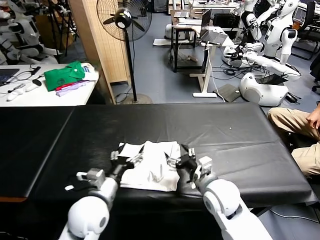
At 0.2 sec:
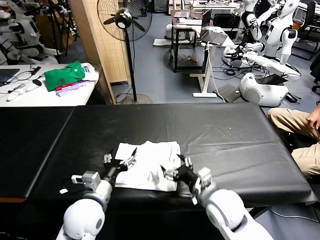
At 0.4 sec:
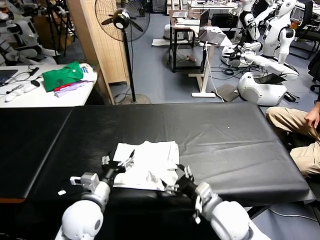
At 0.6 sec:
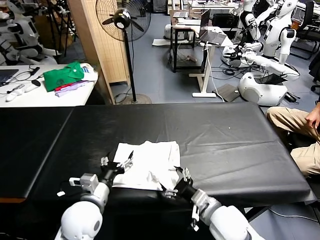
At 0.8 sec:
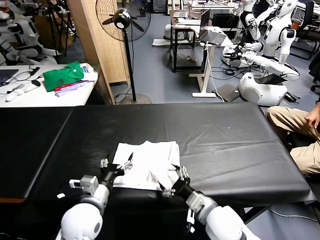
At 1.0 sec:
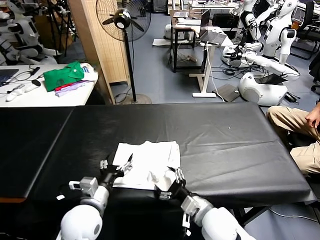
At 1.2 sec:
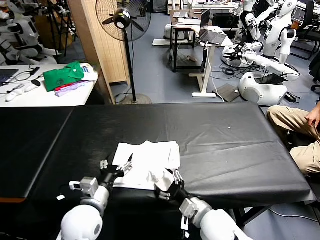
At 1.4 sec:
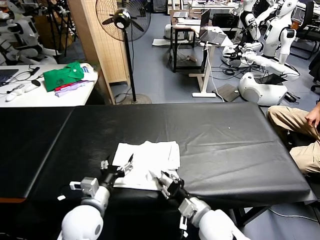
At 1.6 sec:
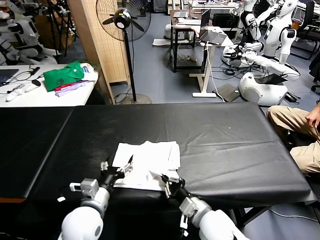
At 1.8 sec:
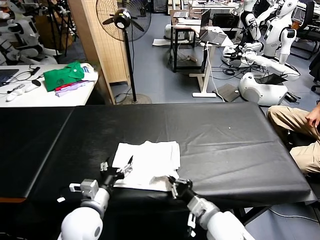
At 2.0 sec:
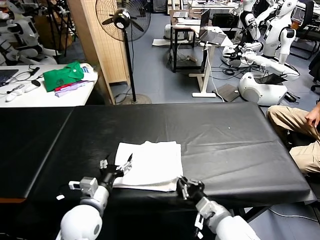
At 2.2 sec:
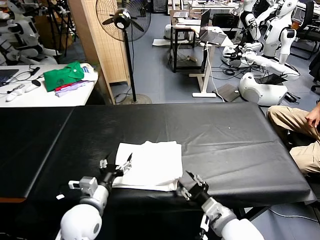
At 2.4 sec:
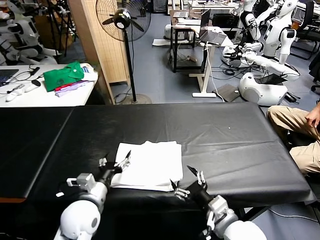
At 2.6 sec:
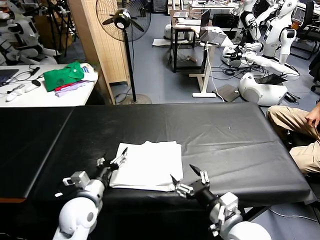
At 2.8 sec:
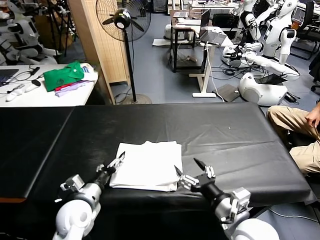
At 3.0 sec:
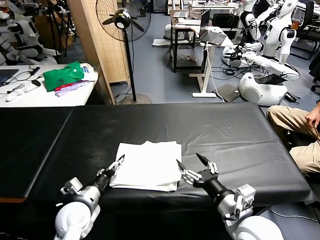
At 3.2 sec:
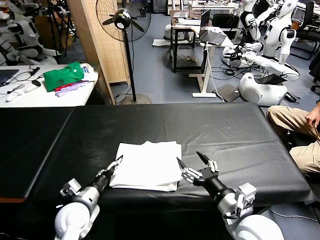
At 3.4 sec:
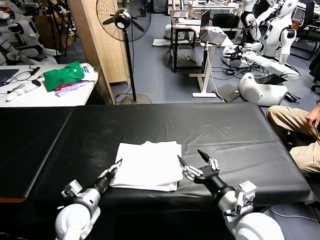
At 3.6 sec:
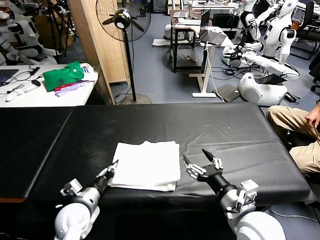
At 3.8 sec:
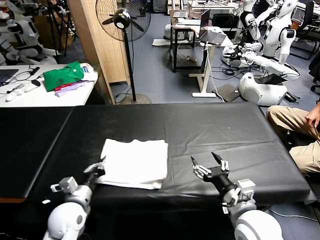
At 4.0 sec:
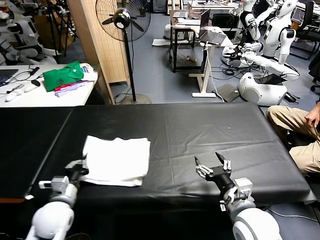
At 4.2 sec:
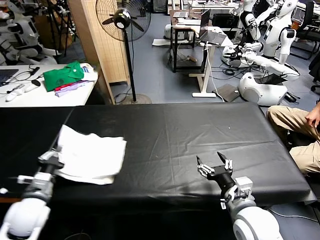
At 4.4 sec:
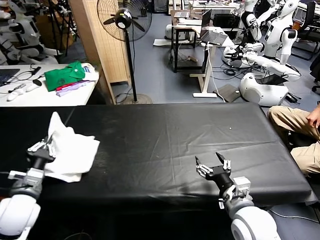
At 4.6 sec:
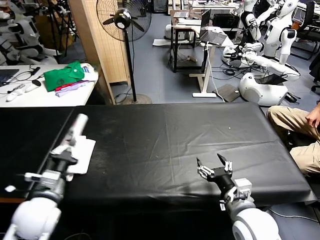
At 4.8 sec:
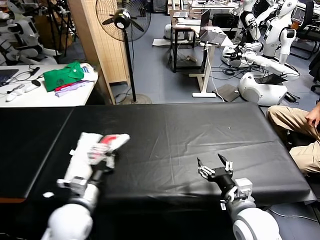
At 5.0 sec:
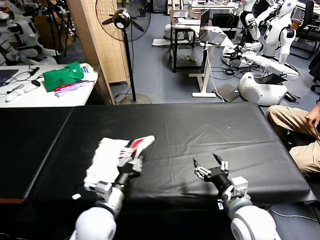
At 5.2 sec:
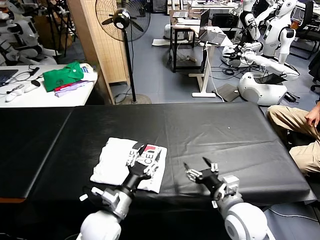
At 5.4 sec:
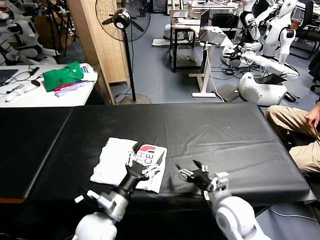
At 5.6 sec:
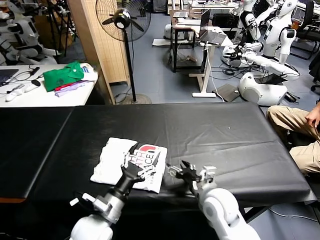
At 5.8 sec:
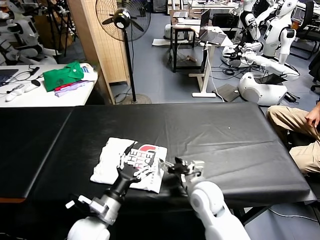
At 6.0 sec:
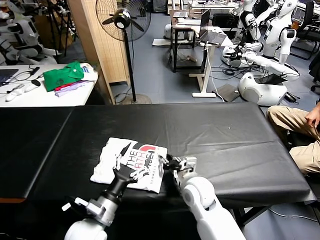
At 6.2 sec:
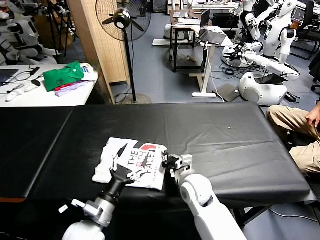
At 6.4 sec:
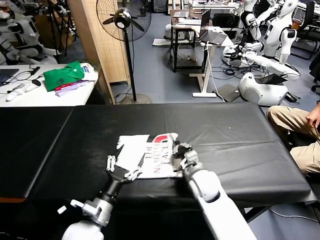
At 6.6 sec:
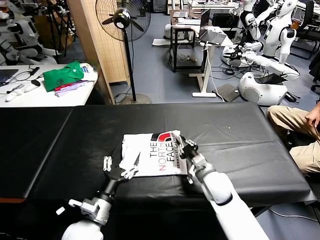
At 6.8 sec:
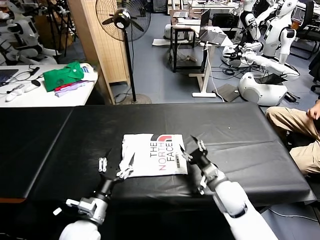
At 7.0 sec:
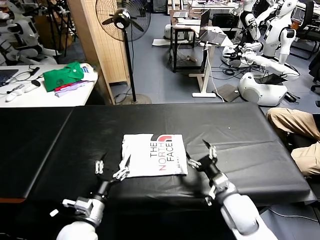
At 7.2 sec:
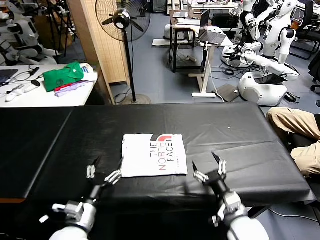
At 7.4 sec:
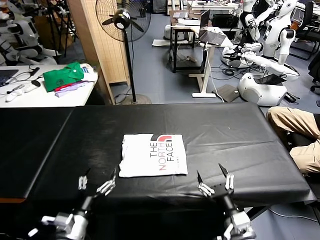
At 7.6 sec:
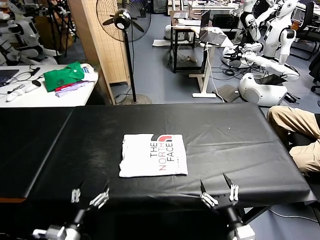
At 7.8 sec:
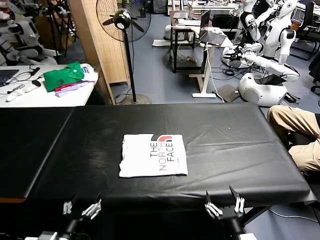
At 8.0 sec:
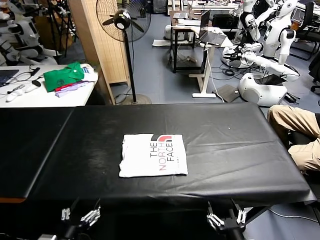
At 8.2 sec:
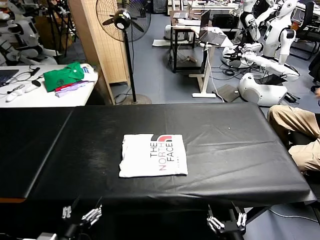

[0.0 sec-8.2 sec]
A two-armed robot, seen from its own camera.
Task of the whole recording: fold and organize the clothes.
Step, 0.0 sec to 5.0 sec: Flip the folded clothes over with left gripper.
Step, 5.2 sec to 6.6 sec: Drag the clothes to the center of the table.
0.0 sec to 1.6 sec: The right gripper goes some 10 cm backward and downward, and closes up.
1.6 sec to 3.2 sec: The left gripper travels to the left and downward by some 10 cm, while the right gripper is displaced upward and to the right by approximately 15 cm, and opens.
3.2 sec to 5.0 sec: The left gripper is displaced to the right and upward by some 10 cm, and closes.
5.0 sec to 6.6 sec: The left gripper opens its fingers. Meanwhile the right gripper travels forward and downward by some 15 cm, and closes its fingers.
6.6 sec to 8.2 sec: The left gripper moves backward and to the left, approximately 15 cm; the right gripper shifts about 30 cm backward, and opens.
